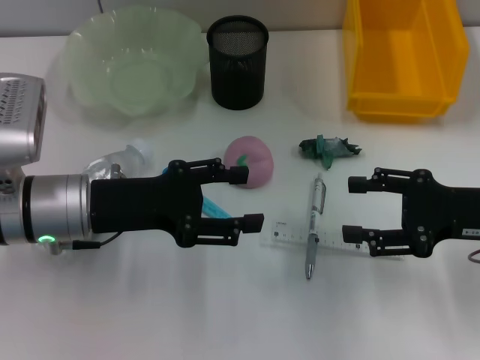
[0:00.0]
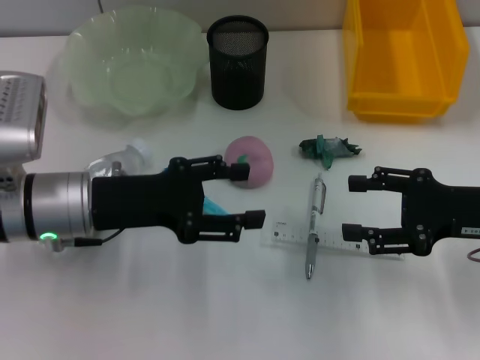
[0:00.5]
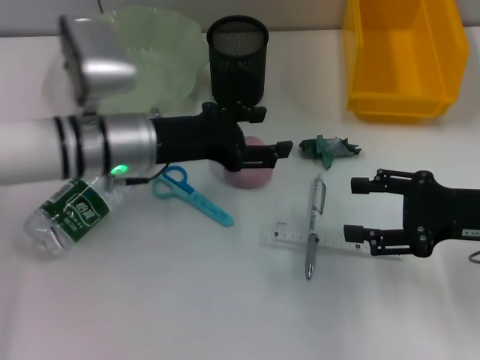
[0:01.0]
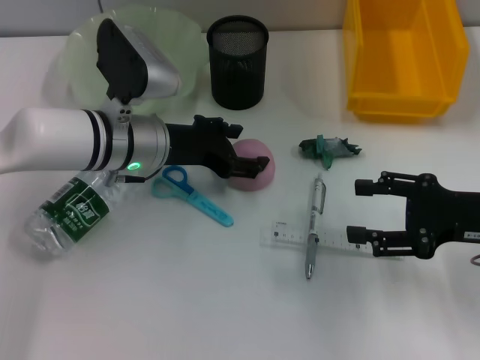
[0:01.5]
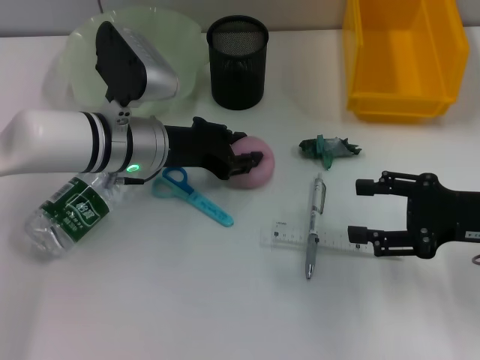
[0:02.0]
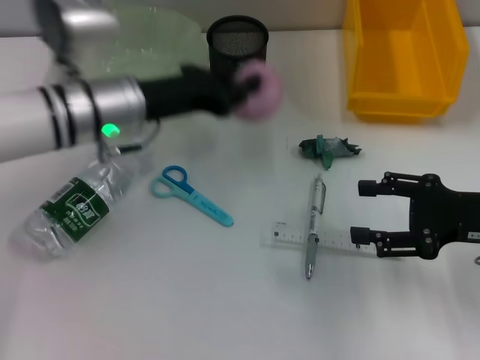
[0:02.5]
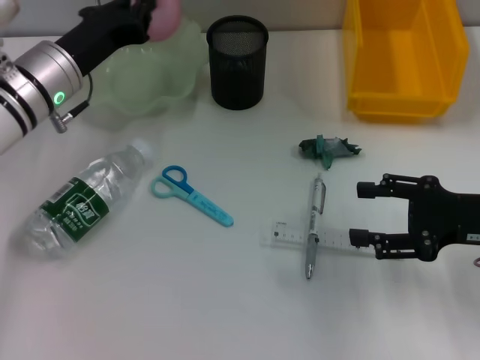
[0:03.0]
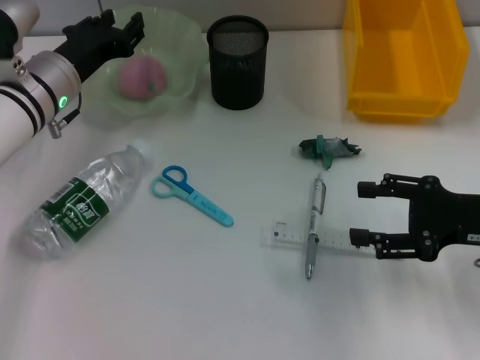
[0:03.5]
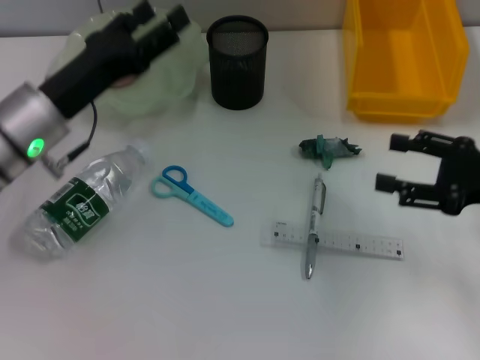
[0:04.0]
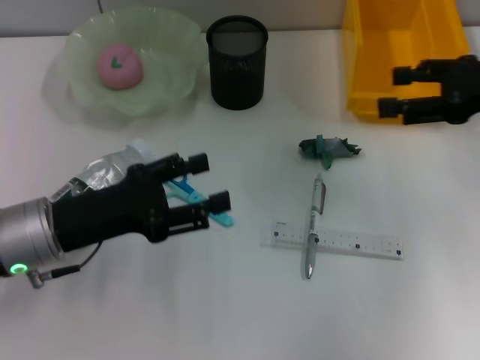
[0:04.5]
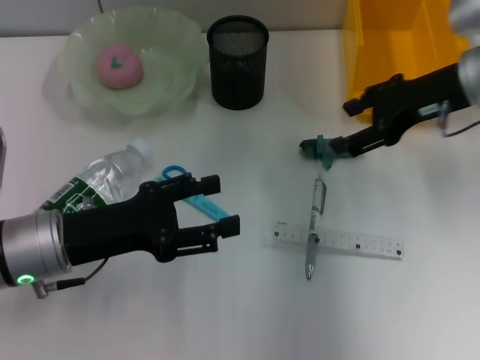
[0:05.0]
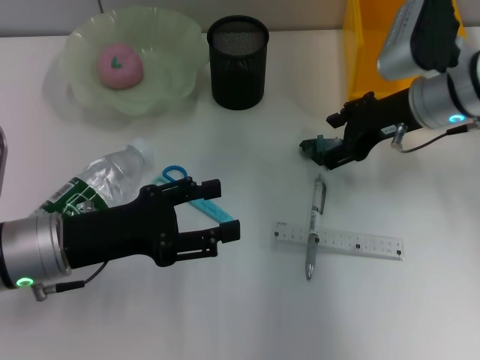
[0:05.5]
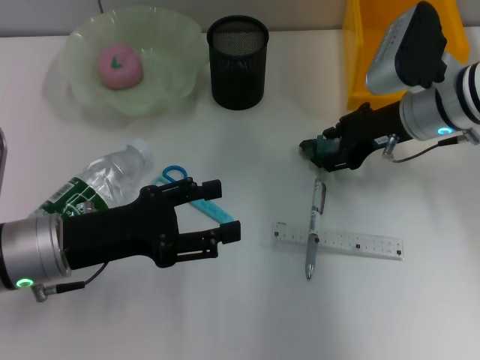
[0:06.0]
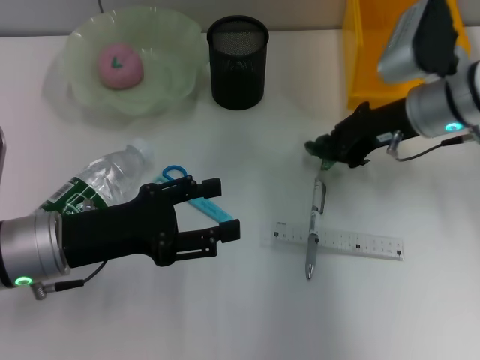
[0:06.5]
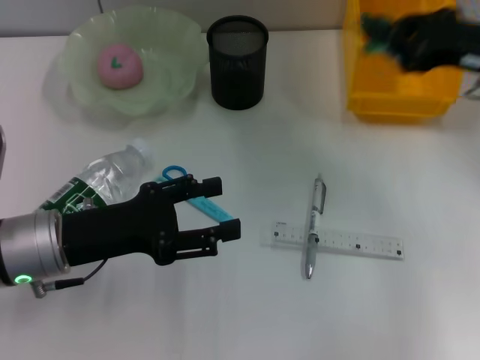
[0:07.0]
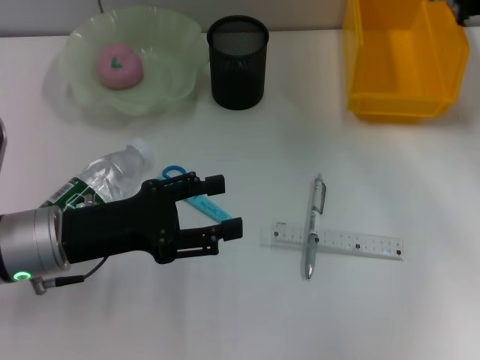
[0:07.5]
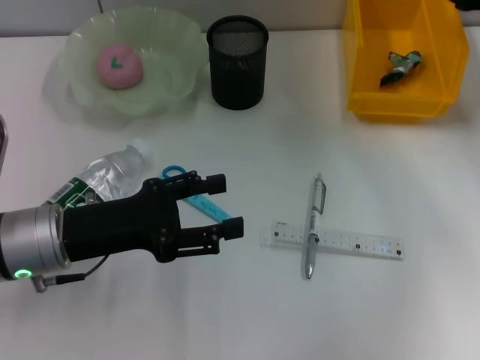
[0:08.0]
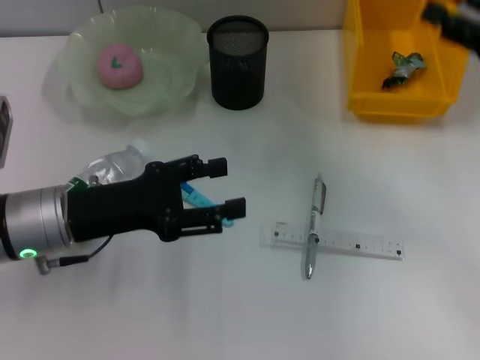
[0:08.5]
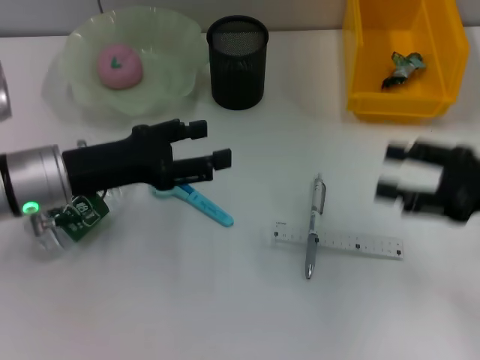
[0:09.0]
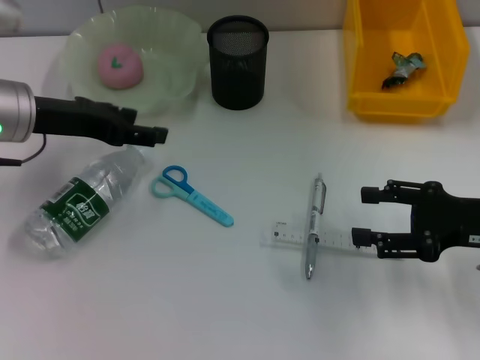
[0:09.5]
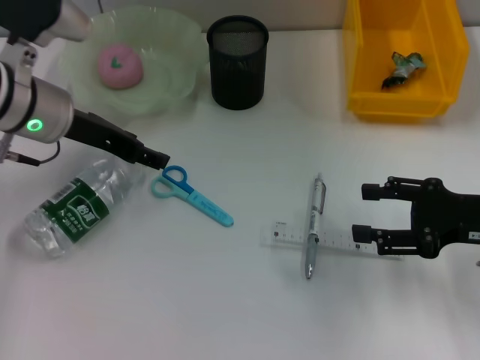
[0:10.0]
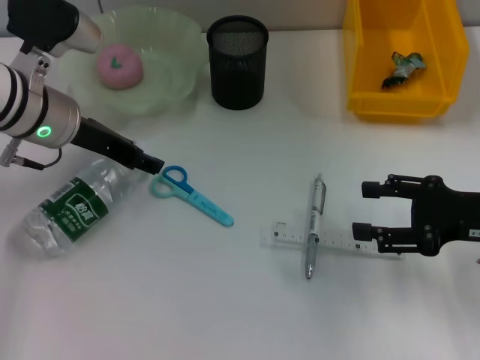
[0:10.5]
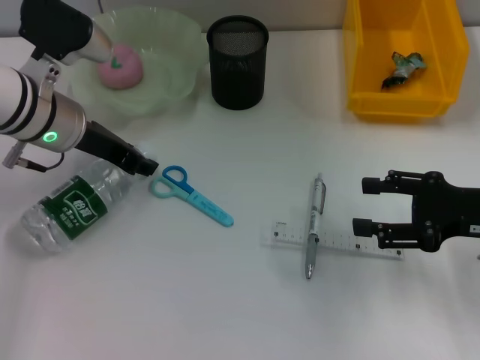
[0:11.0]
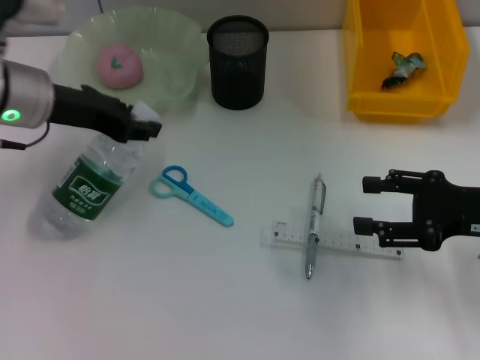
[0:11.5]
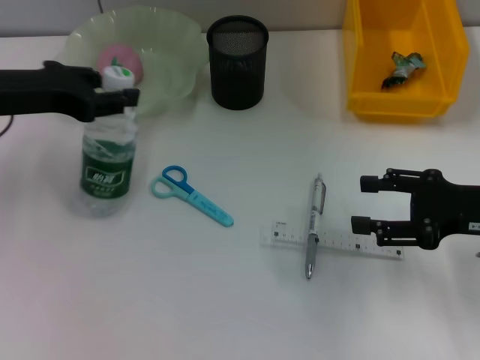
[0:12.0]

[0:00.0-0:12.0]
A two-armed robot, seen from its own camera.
Step, 0.0 to 1.5 s: Grab the peach with the left hand.
Step, 2.0 to 3.5 s: Place the peach into the fruit bowl with the left hand.
Step, 4.0 to 6.0 s: Grab the plastic with the right hand.
Step, 6.5 to 8.0 s: Place the plastic into the trash can with the right hand.
Step, 8.5 to 11.0 s: Grab the water bottle with the left hand.
0.0 to 2.0 s: The left gripper is displaced forward and to the right by some 10 cm.
2.0 to 4.0 s: The left gripper heads to the left, covering some 10 cm, and closes, then reopens.
4.0 to 6.0 s: The right gripper goes approximately 15 cm forward and to the left; the left gripper heads backward, covering roughly 10 cm.
6.0 to 8.0 s: The right gripper travels to the right by some 10 cm, and closes.
8.0 to 10.0 s: The right gripper heads backward and downward, covering some 15 cm, and opens its fingers, while the left gripper shifts some 15 cm forward and upward.
10.0 to 12.0 s: The left gripper heads to the left, covering roughly 5 cm, and closes its fingers.

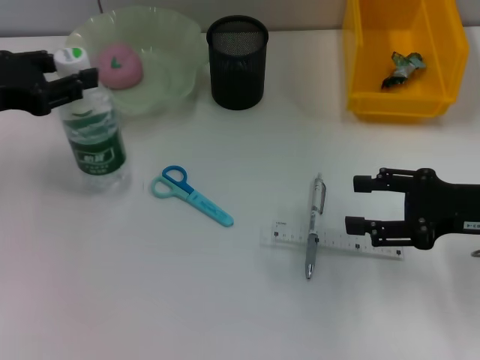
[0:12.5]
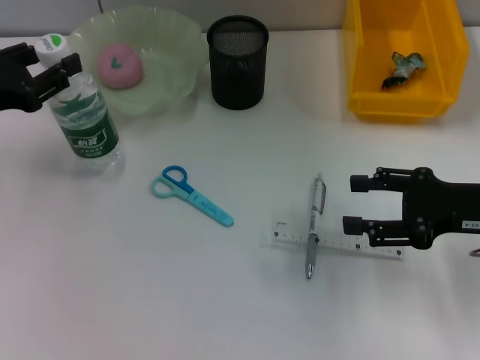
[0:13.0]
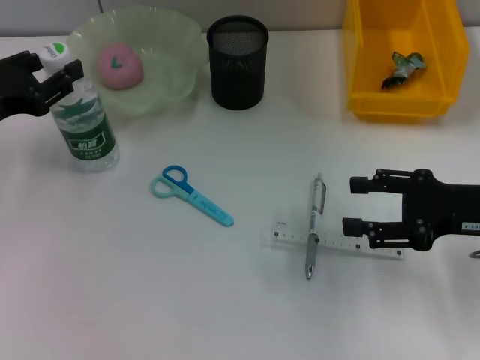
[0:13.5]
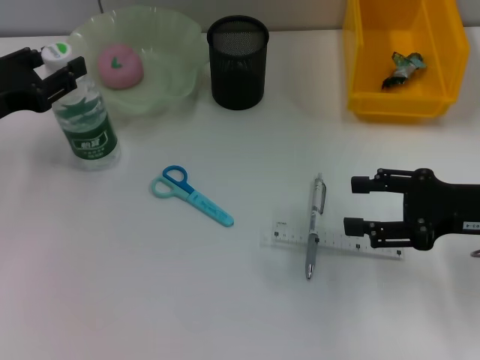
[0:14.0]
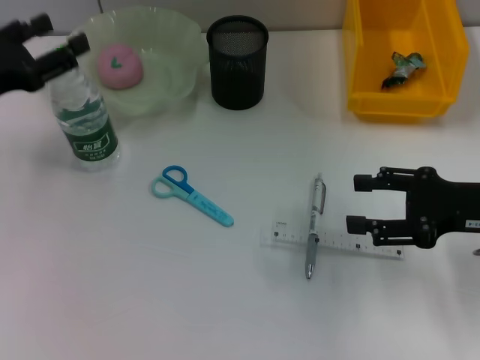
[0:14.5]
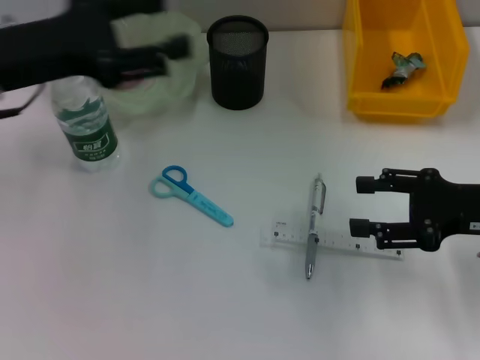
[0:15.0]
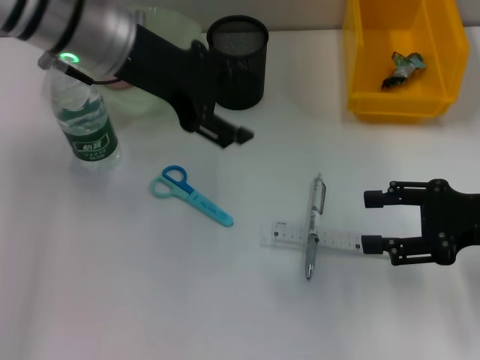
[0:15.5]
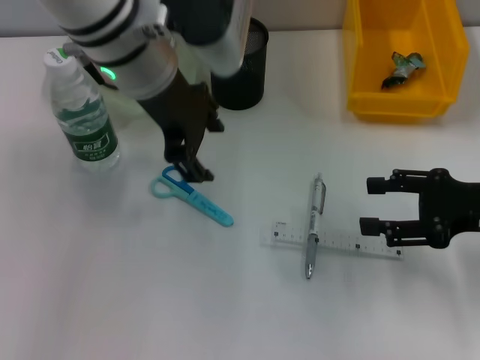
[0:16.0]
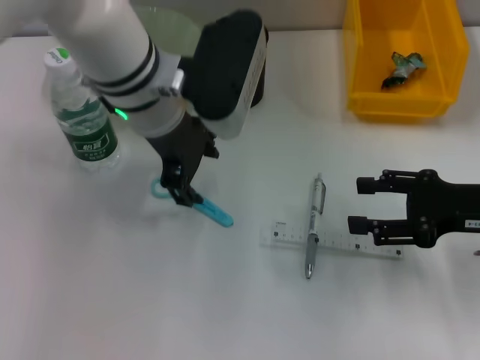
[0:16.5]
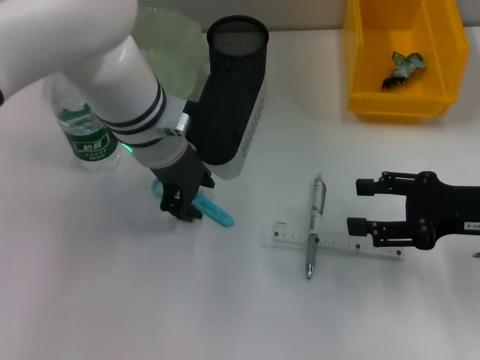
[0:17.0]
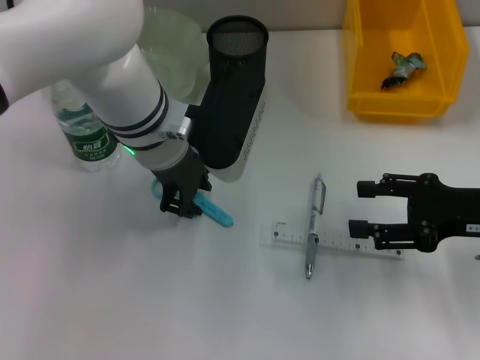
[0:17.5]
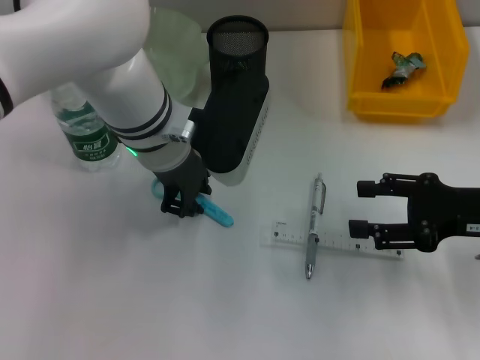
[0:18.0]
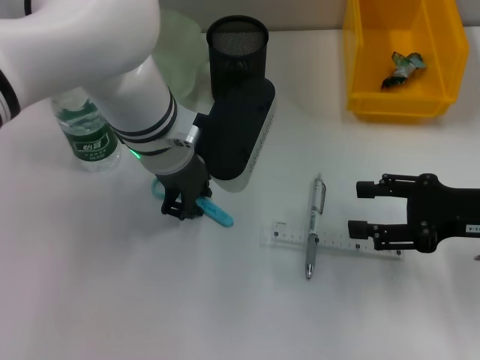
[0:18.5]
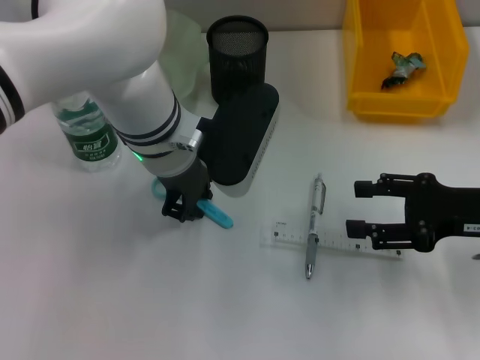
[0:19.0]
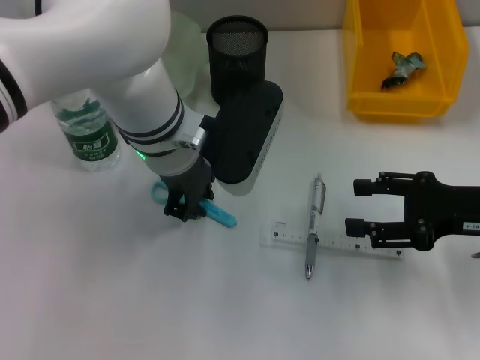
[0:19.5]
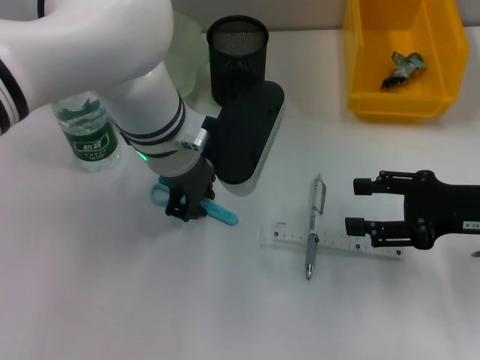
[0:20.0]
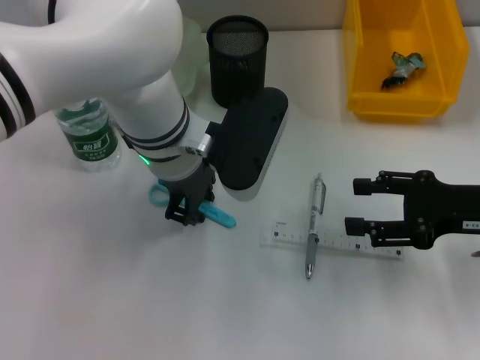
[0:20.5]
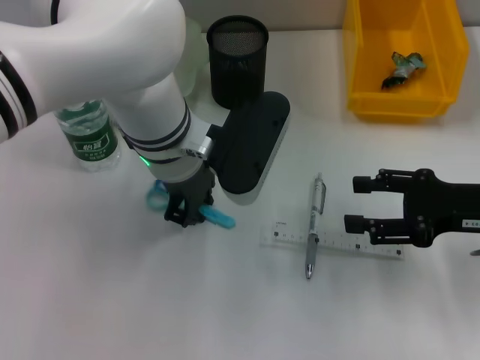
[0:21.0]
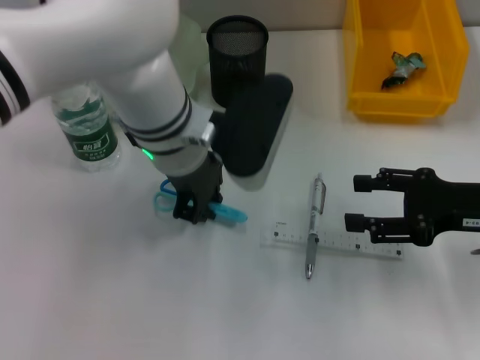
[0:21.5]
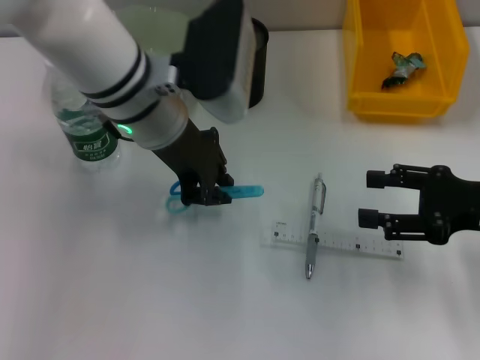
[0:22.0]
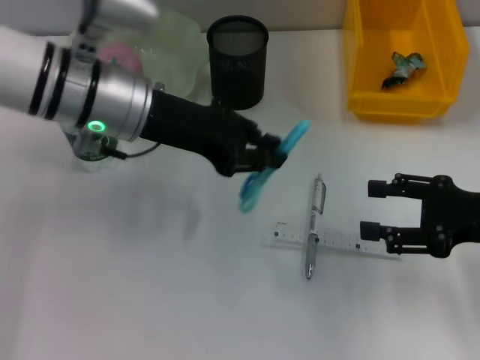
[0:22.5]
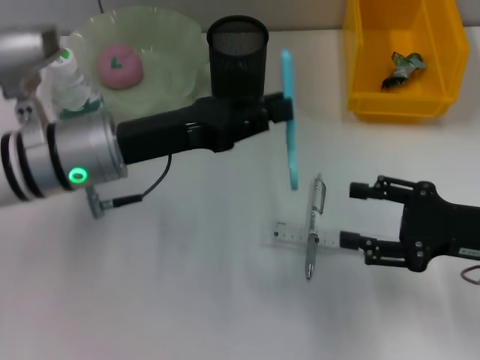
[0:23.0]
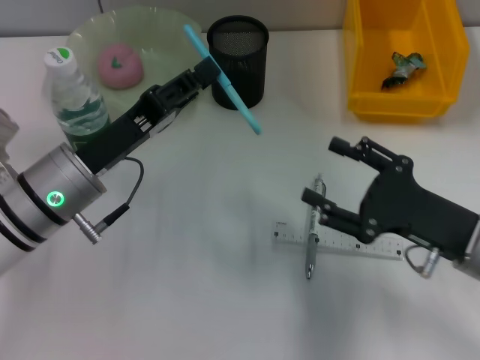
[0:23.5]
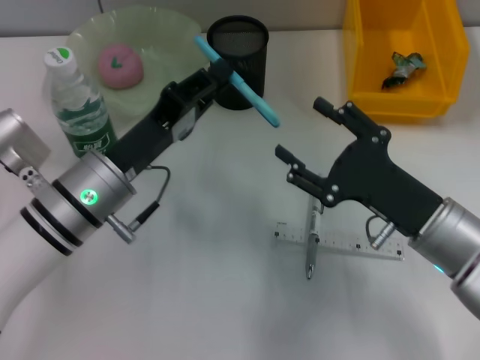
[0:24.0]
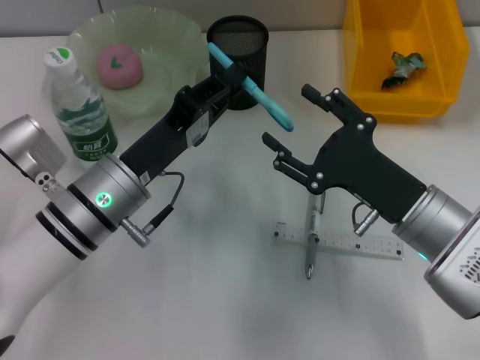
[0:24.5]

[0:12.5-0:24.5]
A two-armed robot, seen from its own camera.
Step, 12.5 to 14.5 s: Place the water bottle on the table with the left hand.
Step, 15.0 to 21.0 s: Grab the blue scissors with the left hand.
12.5 to 14.5 s: The left gripper opens up.
14.5 to 16.5 s: The left gripper moves to the right, roughly 20 cm.
16.5 to 18.5 s: The left gripper closes its fingers.
18.5 to 20.5 s: Both grippers stay about where they are.
20.5 to 22.5 s: The left gripper moves to the left, roughly 5 cm.
22.5 to 24.5 s: The right gripper goes roughly 10 cm to the left, while the left gripper moves downward and backward, some 15 cm.

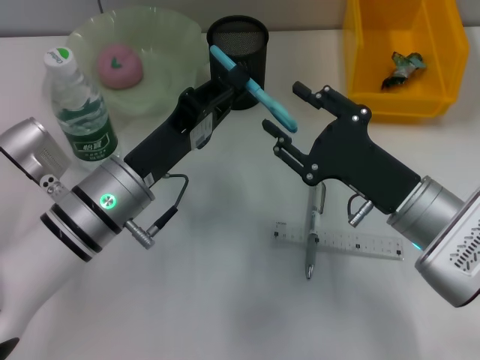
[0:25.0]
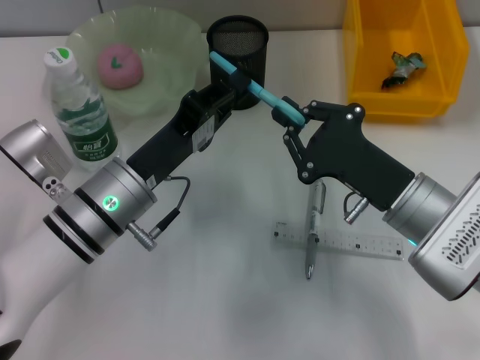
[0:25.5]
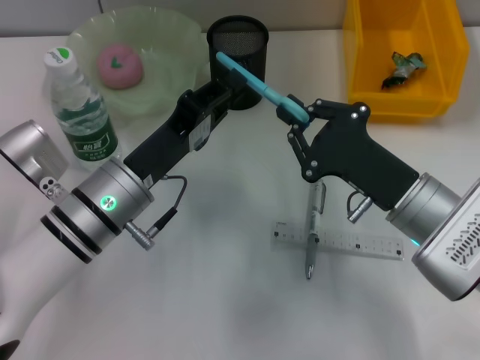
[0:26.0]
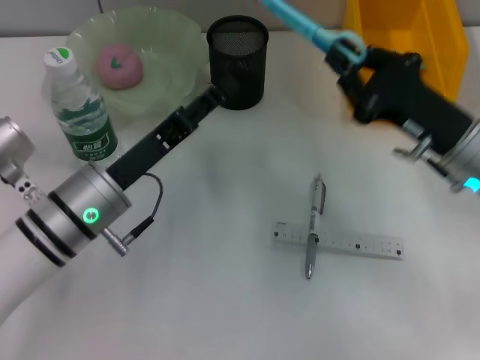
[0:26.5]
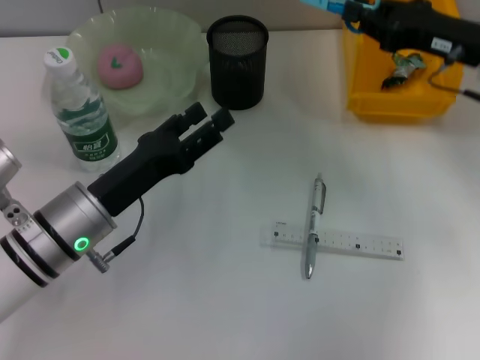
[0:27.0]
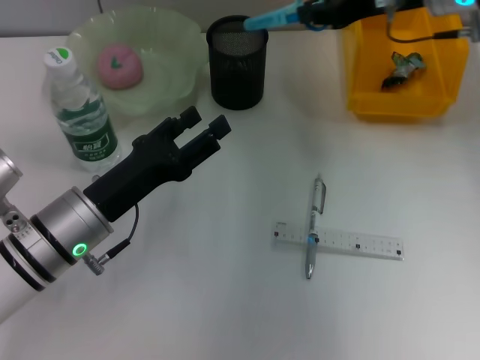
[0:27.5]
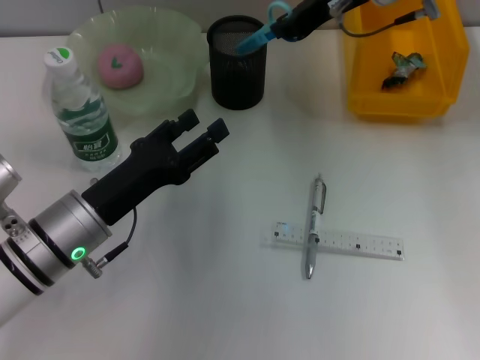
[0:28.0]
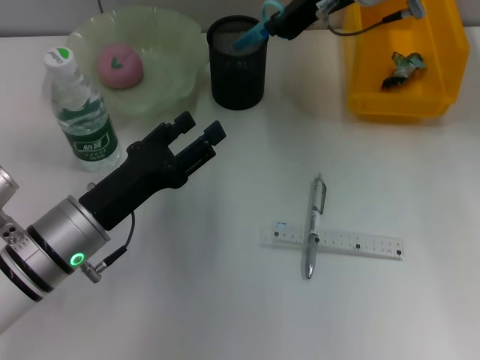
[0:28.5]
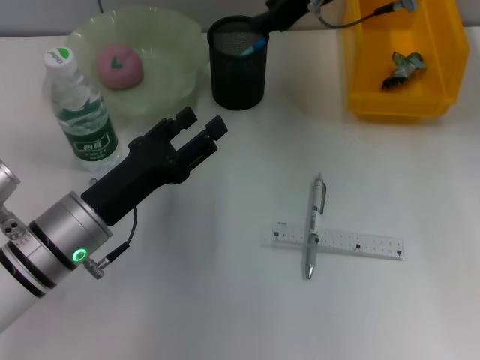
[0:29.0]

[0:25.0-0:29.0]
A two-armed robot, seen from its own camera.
25.0 to 27.0 s: The left gripper opens. The right gripper goes some 20 cm forward, upward and to the right, and closes.
27.0 to 29.0 s: The right gripper heads to the left, forward and upward, covering about 20 cm.
